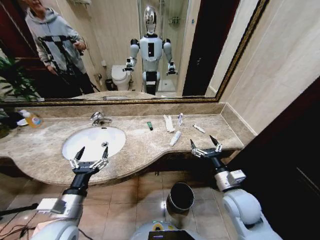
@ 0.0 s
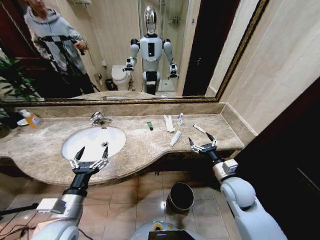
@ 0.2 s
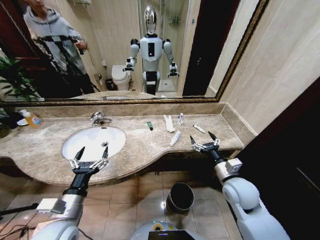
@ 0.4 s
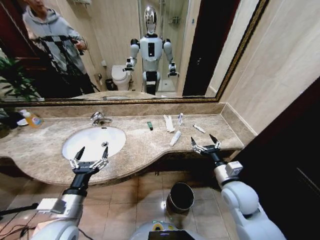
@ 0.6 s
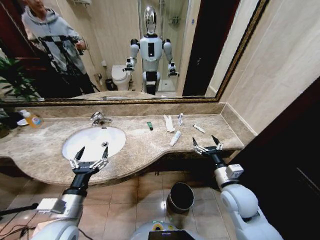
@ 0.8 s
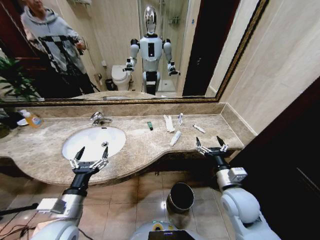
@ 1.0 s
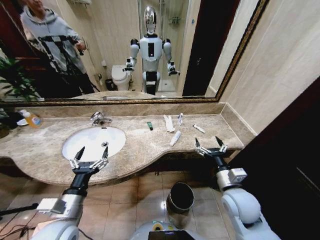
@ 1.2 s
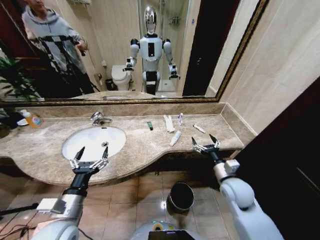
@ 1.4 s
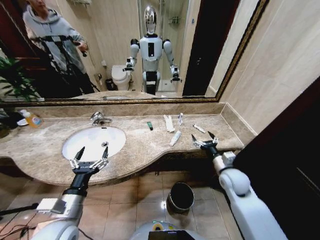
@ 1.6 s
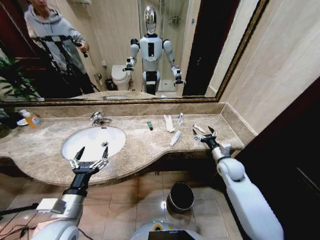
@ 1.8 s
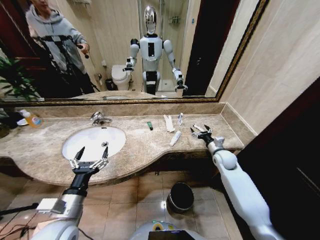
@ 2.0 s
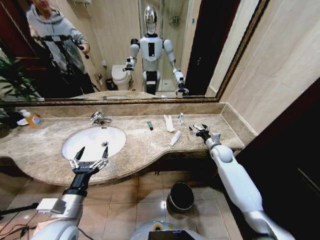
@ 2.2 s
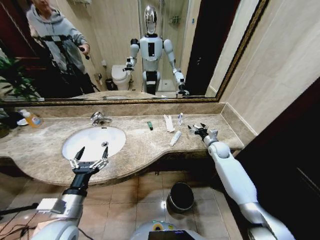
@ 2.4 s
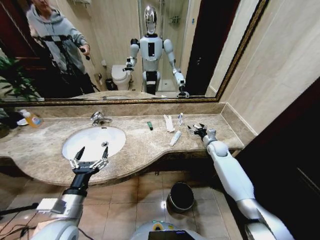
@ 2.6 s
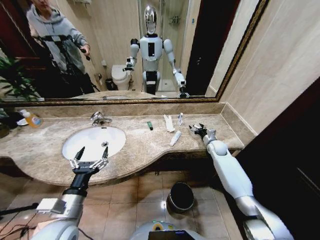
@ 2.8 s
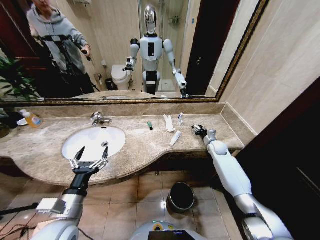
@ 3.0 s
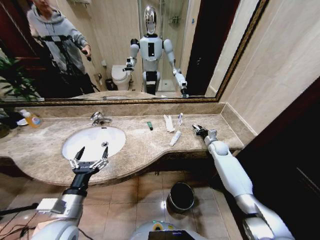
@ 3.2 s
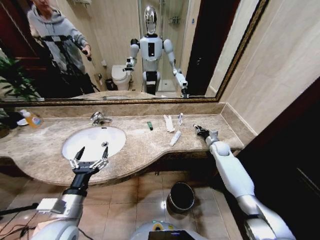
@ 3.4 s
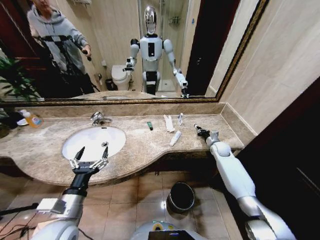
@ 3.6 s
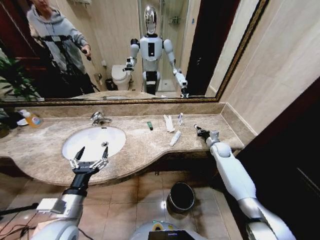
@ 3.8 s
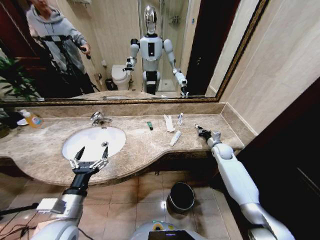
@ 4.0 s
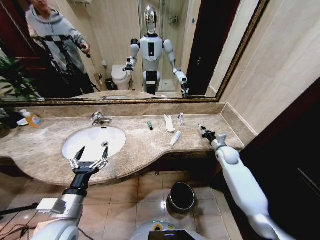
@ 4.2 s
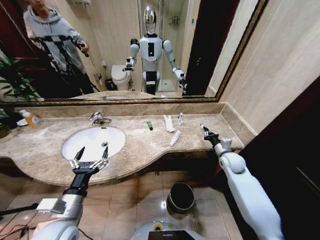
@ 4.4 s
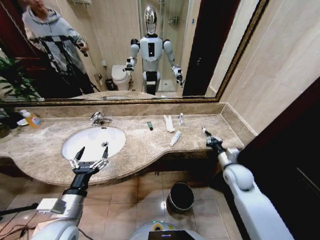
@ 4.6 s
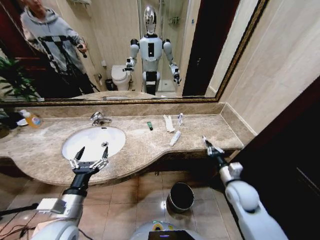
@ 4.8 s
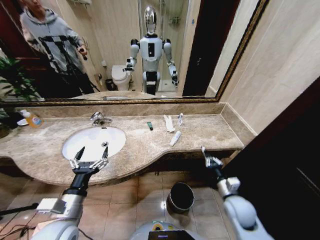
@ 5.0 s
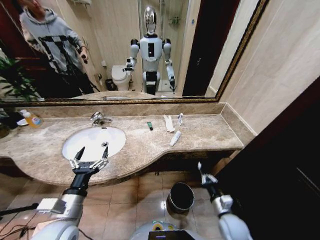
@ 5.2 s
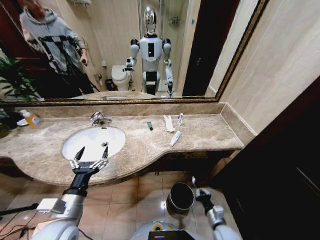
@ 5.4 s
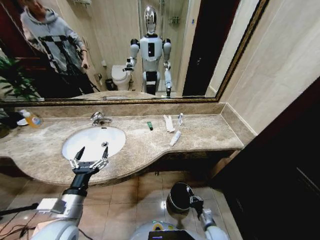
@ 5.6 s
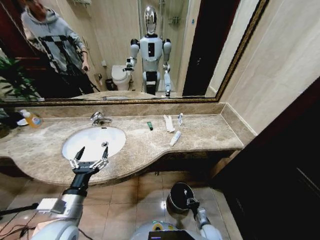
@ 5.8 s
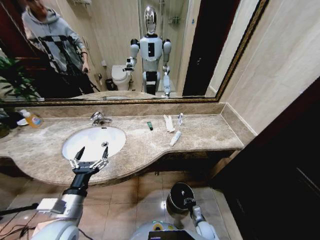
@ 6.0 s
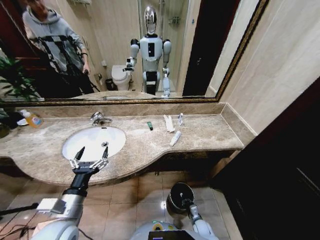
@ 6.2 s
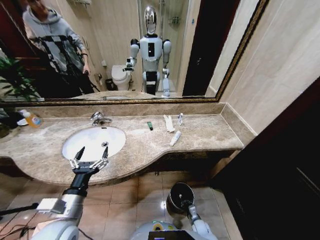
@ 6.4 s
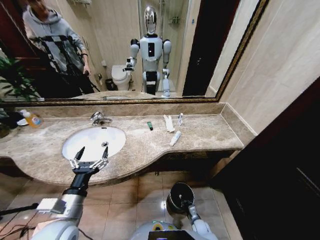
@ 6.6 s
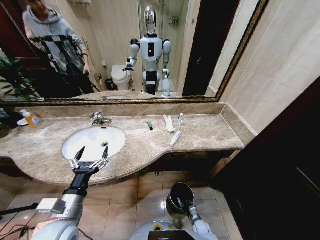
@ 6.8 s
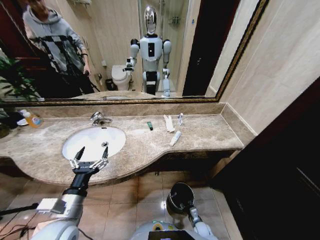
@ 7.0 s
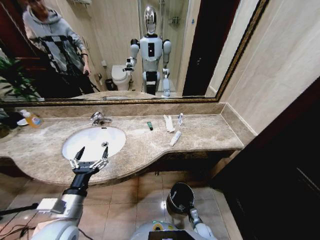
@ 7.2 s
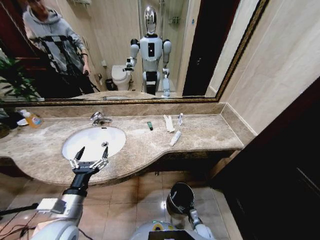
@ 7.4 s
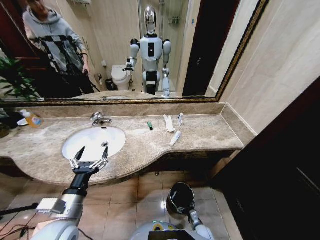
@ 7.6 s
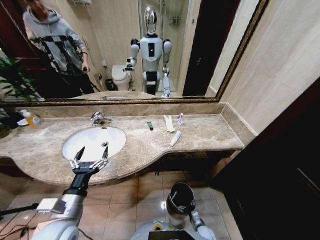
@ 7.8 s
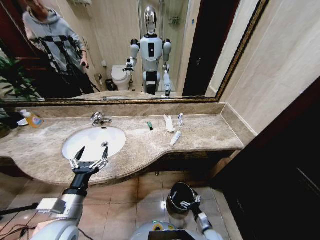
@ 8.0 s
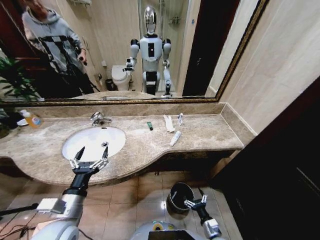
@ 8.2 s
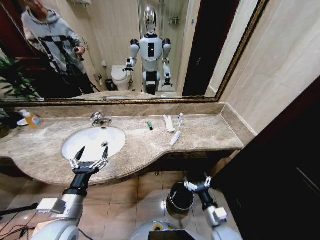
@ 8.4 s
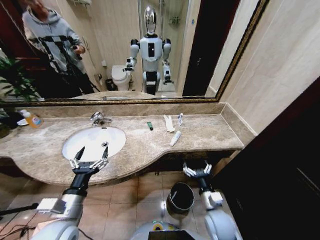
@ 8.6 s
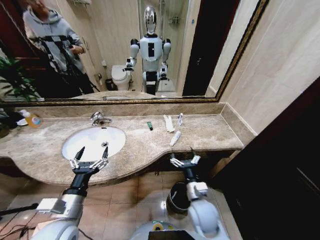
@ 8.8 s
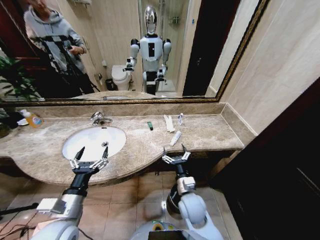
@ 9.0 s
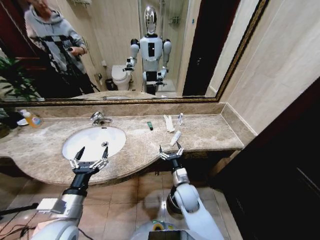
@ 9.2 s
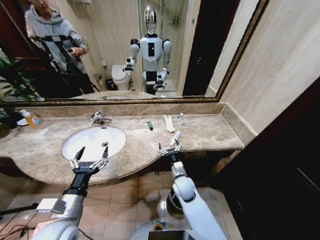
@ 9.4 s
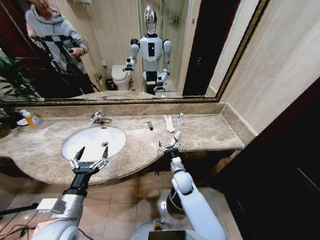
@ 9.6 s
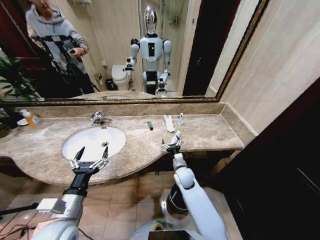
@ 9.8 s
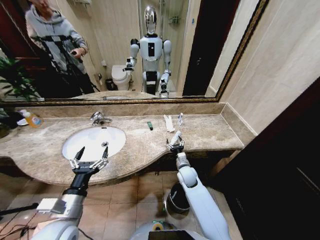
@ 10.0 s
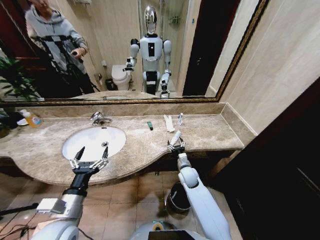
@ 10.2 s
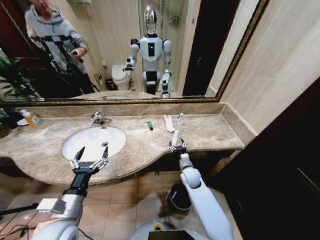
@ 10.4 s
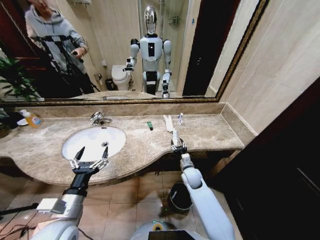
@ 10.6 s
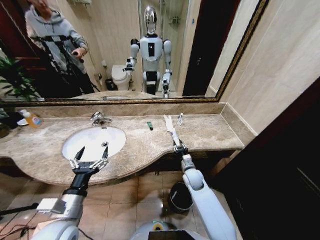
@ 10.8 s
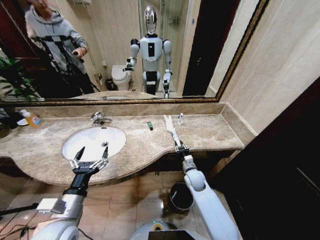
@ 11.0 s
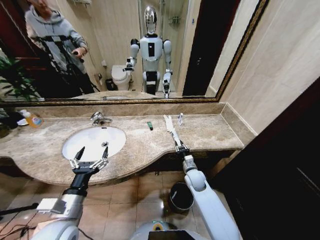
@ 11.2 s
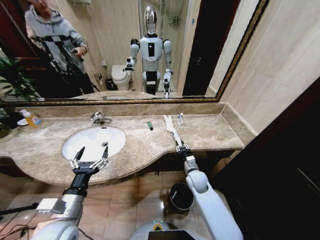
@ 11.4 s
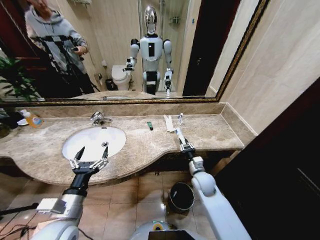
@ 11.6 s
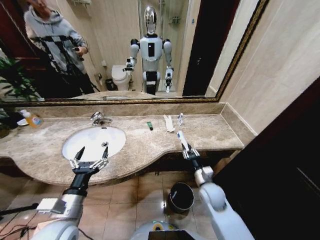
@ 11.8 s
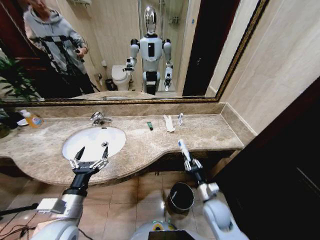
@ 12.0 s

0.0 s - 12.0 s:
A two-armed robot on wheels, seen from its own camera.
Task of the whole recording: Pick up the trash from the sink and place it in the trash bin.
1.6 s - 3.0 s: The right gripper shifts approximately 20 cm forward, and closes up.
3.0 s - 4.4 s: The right gripper shifts about 10 cm backward, and closes.
4.4 s - 6.0 s: The right gripper is displaced downward and backward by approximately 40 cm.
6.0 s - 7.6 s: The right gripper opens.
7.6 s - 9.0 s: The right gripper is displaced upward by some 35 cm.
9.0 s - 10.4 s: The right gripper travels forward by some 15 cm.
10.4 s - 12.0 s: The right gripper moves backward and to the right, approximately 15 cm, and closes.

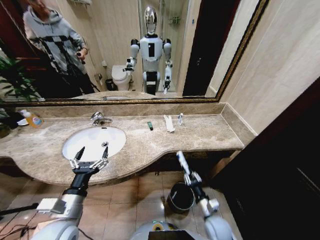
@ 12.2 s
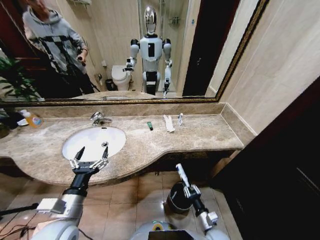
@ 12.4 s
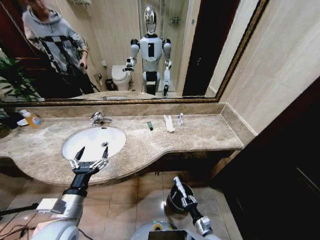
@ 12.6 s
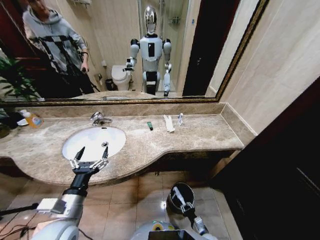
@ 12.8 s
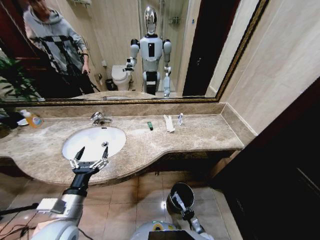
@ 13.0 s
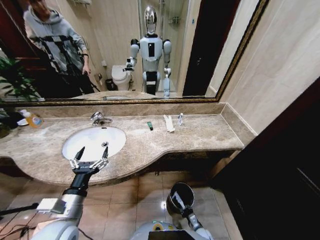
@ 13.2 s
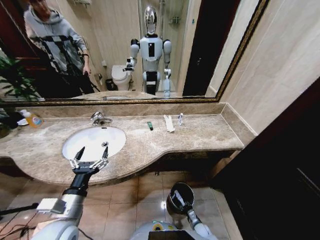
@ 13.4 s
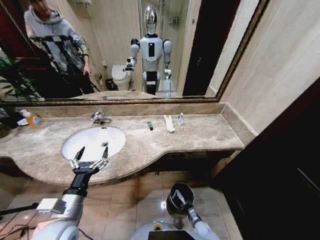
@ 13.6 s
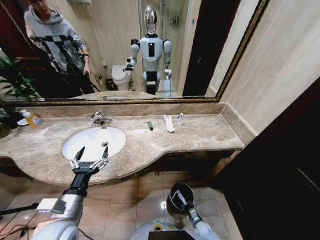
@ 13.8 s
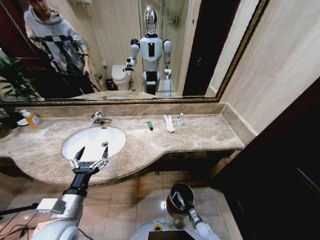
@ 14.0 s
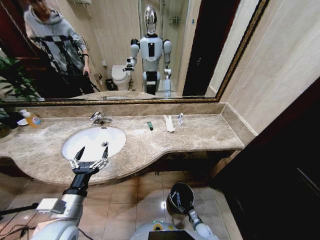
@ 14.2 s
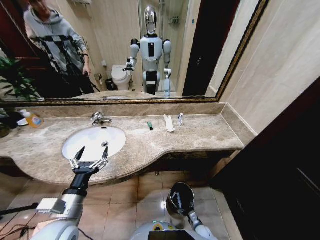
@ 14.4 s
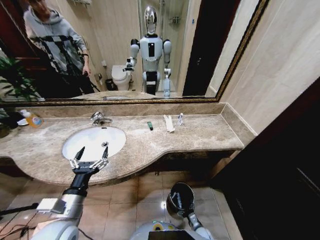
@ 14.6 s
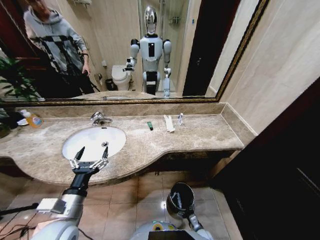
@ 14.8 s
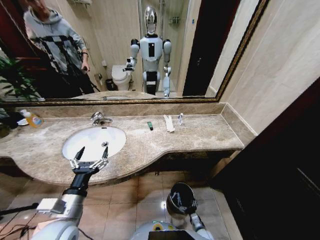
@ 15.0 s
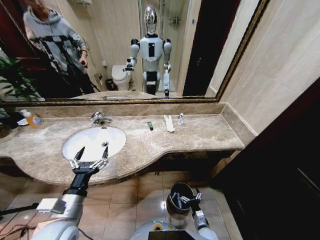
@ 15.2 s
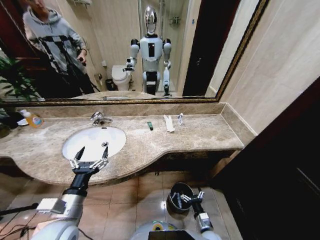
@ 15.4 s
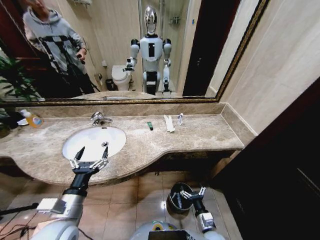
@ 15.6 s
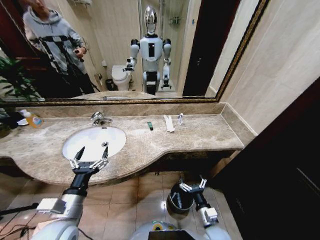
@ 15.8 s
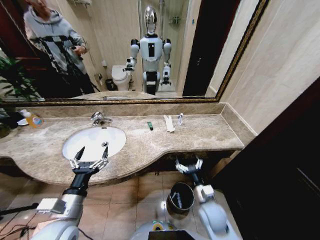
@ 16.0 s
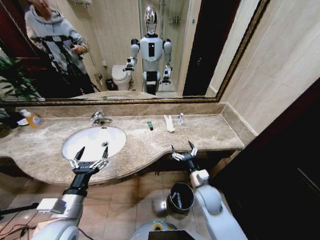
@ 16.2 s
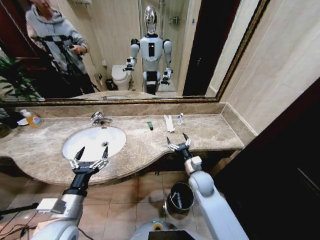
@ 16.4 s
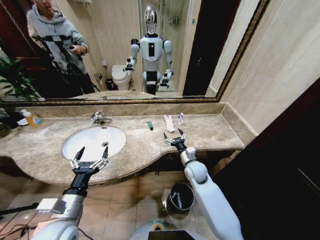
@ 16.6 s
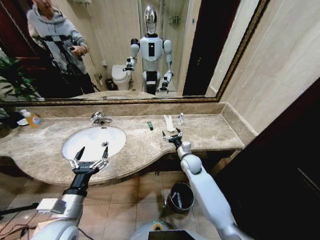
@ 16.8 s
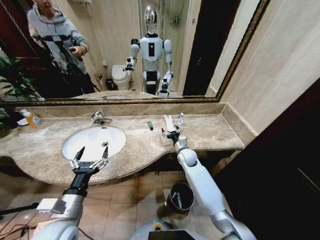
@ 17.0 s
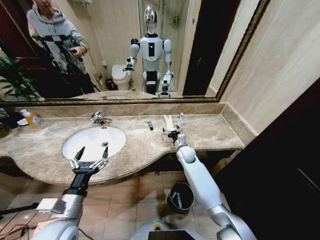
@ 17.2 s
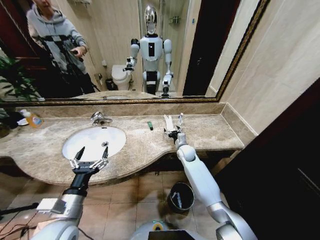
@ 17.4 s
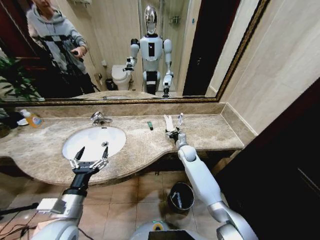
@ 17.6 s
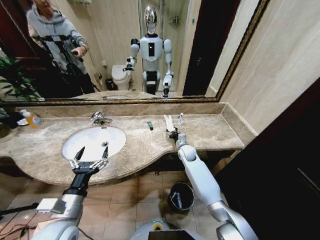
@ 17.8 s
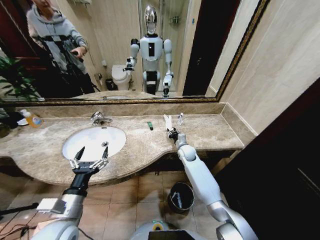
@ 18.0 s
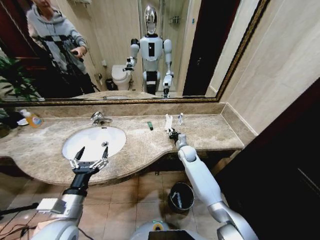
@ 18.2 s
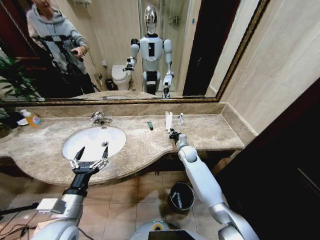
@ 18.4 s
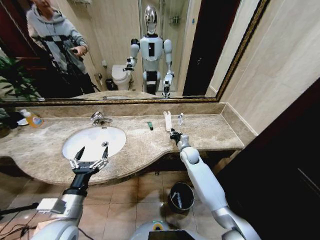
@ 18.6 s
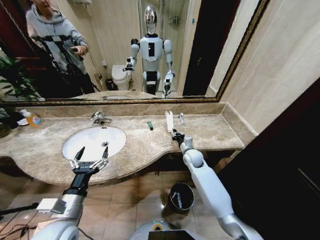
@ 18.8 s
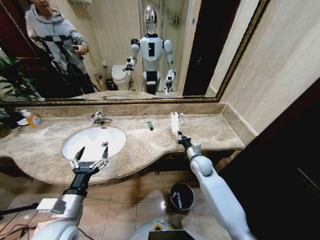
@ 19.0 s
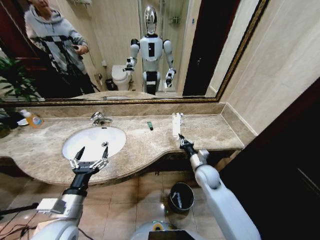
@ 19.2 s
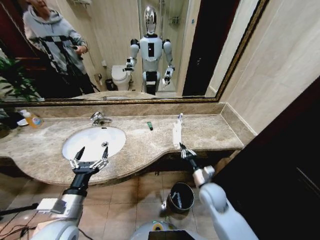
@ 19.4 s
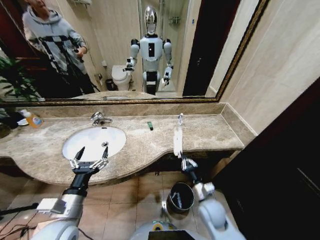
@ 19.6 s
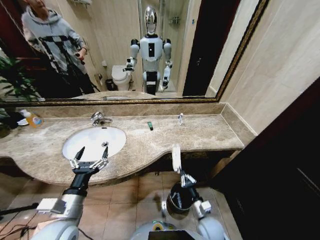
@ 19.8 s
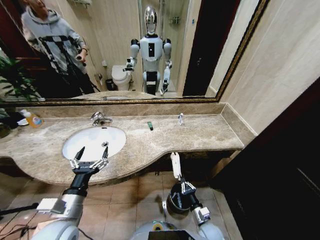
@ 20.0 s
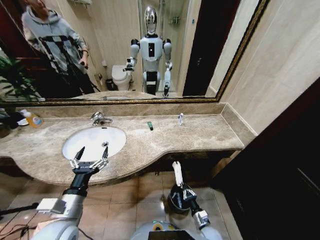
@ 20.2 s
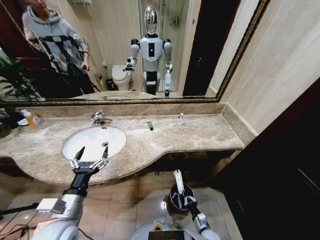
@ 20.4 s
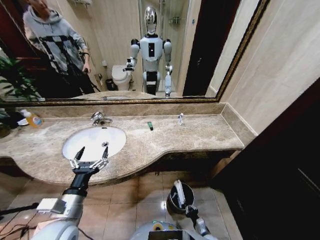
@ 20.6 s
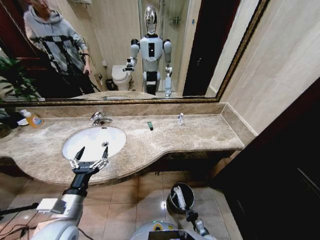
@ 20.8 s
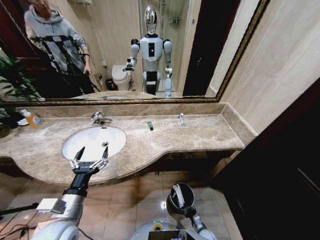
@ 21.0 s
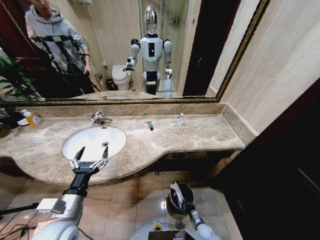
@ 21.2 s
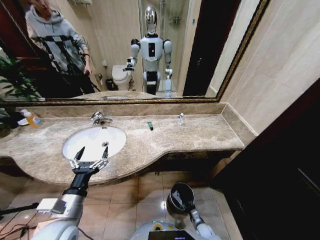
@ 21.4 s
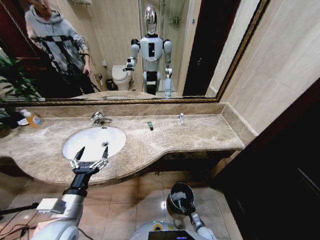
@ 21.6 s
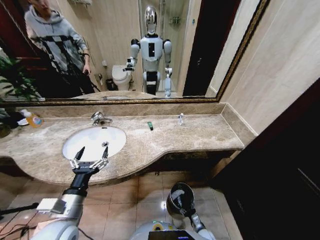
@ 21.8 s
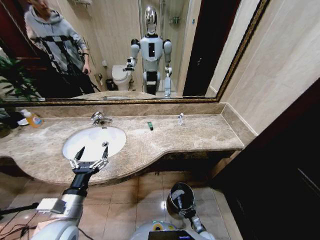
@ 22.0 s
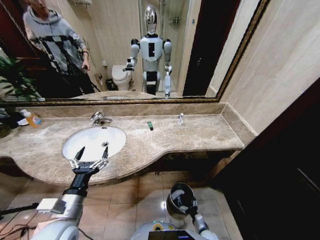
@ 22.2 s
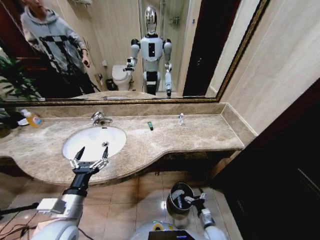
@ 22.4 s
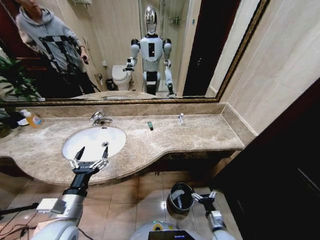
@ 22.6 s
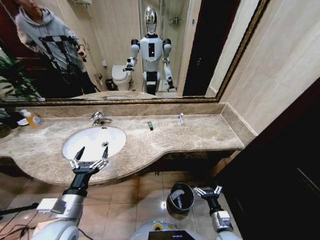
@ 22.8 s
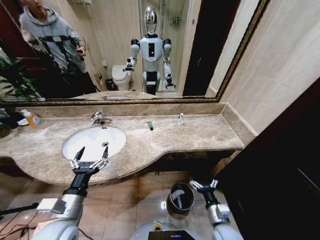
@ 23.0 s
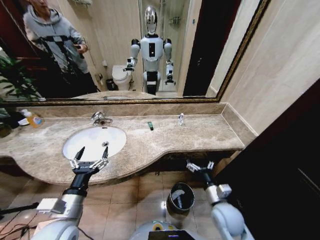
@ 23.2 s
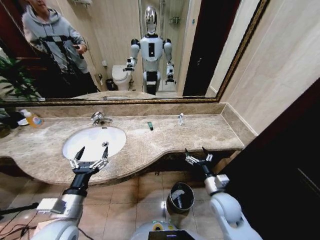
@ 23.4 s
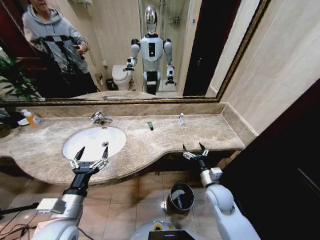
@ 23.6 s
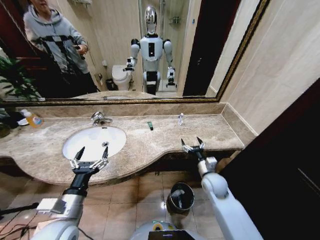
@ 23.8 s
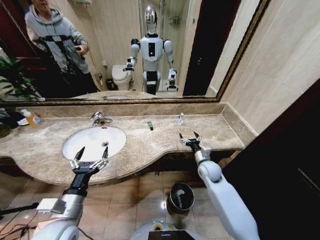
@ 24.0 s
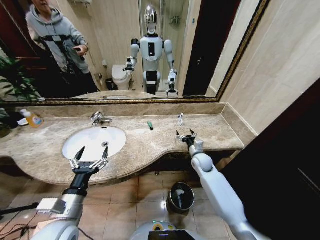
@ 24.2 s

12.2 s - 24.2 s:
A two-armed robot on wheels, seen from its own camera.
Task of the whole recording: Pick up the trash from the sink and place it in the trash bin.
12.2 s - 13.8 s: The right gripper is displaced downward by about 25 cm.
13.8 s - 15.2 s: The right gripper shifts approximately 10 cm upward, and opens.
15.2 s - 16.6 s: The right gripper heads upward and forward, covering about 35 cm.
16.6 s - 18.2 s: The right gripper moves forward, roughly 10 cm, and closes up.
18.2 s - 19.8 s: The right gripper heads backward, covering roughly 30 cm.
19.8 s - 21.2 s: The right gripper is displaced downward by approximately 25 cm.
21.2 s - 22.6 s: The right gripper shifts about 20 cm upward, and opens its fingers.
22.6 s - 24.2 s: The right gripper travels forward and upward by roughly 35 cm.
